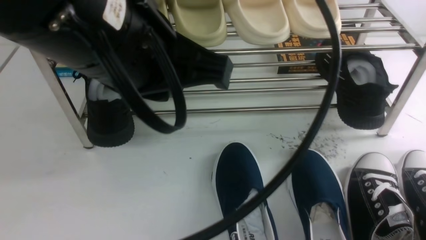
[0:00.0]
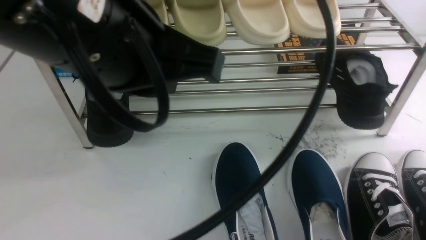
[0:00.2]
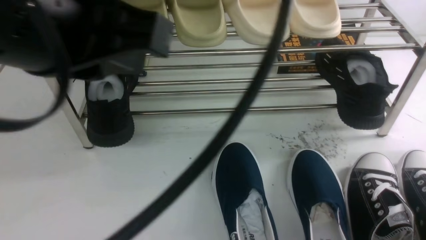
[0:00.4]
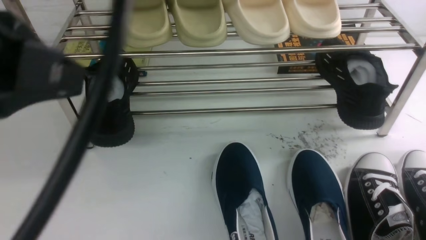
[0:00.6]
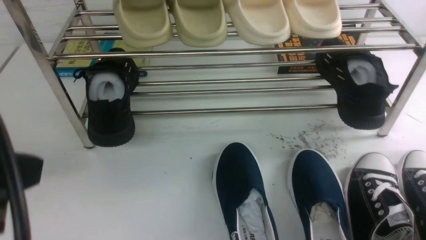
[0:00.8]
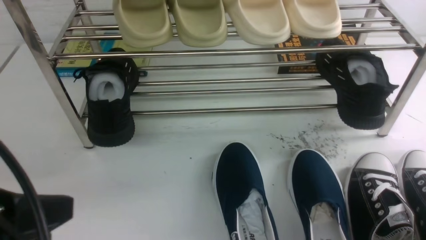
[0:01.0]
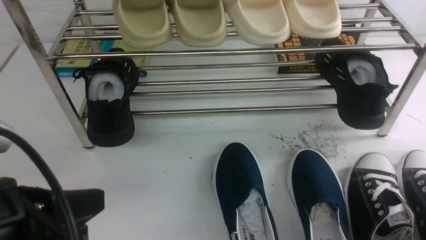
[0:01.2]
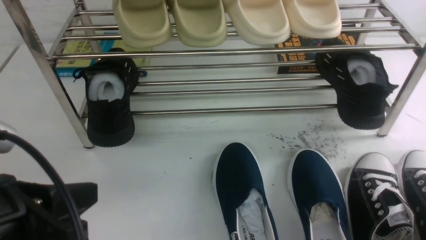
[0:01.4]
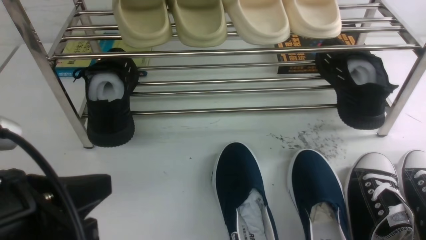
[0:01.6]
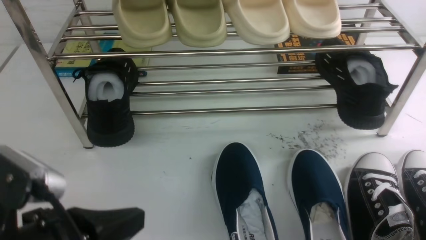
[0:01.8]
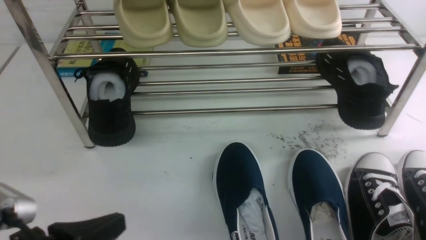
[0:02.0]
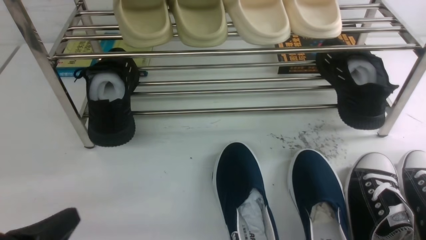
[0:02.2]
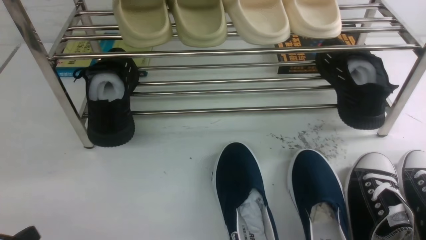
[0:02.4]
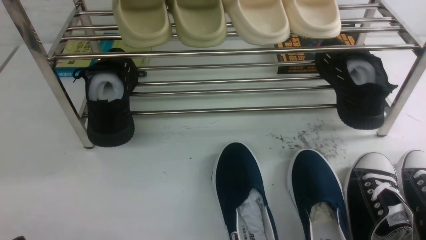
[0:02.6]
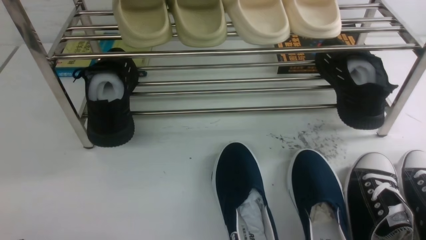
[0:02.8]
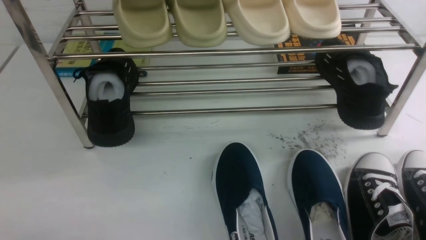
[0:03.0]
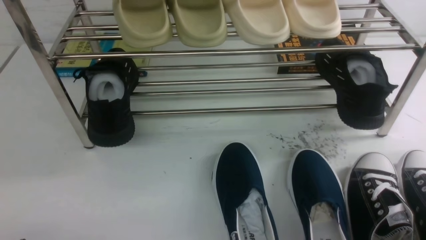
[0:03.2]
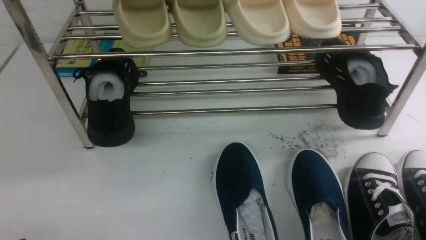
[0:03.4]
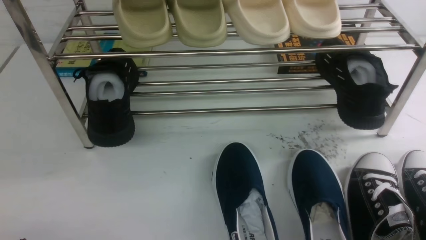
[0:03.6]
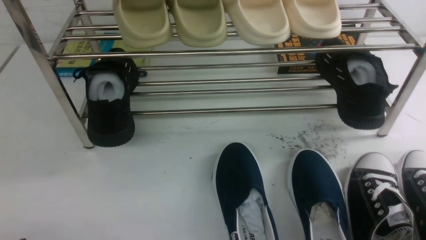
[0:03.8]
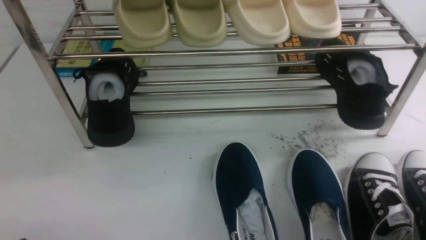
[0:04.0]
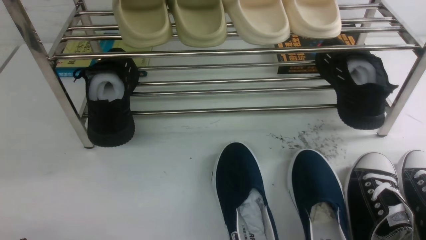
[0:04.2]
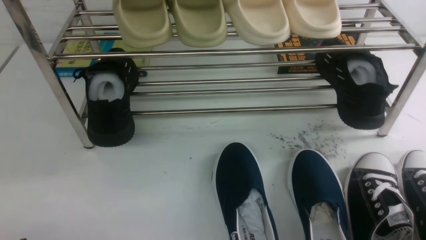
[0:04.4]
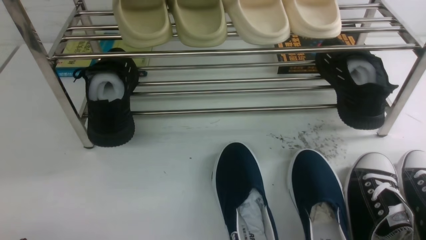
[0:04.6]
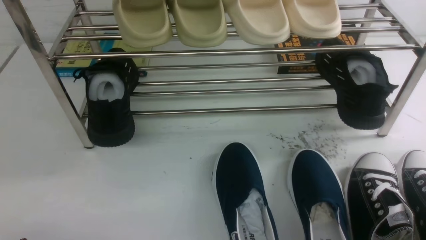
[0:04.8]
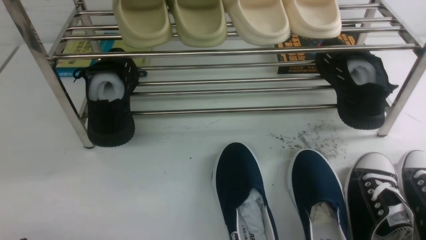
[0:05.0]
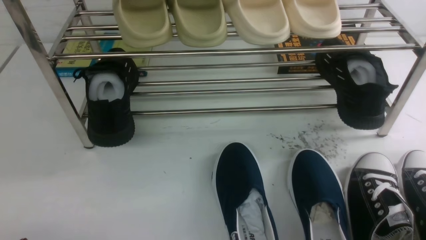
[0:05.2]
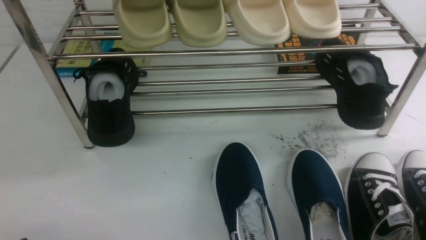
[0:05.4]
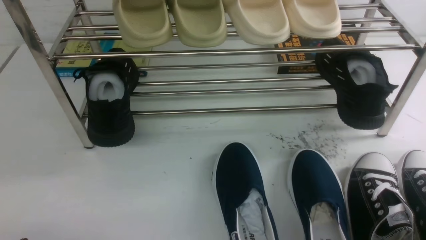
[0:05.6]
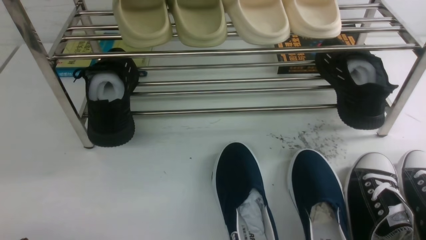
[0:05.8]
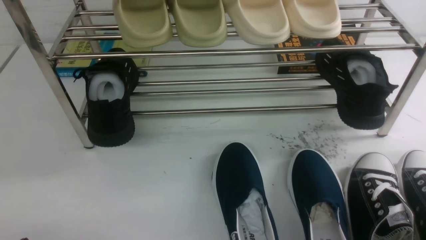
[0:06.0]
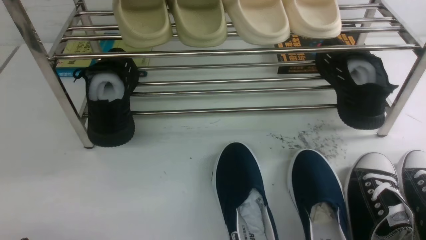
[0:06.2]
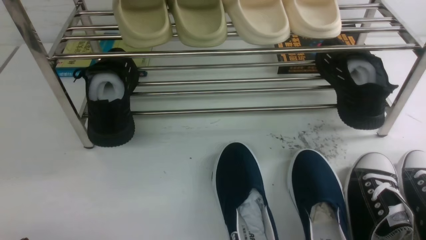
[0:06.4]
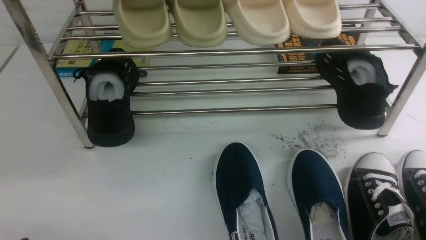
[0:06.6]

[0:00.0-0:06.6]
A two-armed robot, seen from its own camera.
0:00.0 to 0:01.6: The left gripper travels downward, to the left and backward by about 20 cm.
0:01.6 to 0:03.2: The left gripper travels downward and to the left by some 15 cm.
0:03.2 to 0:06.6: The two grippers keep their place.
